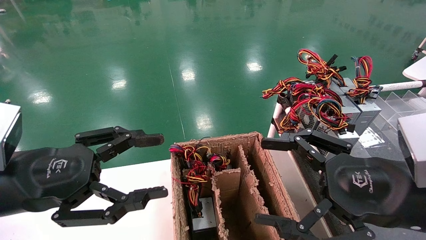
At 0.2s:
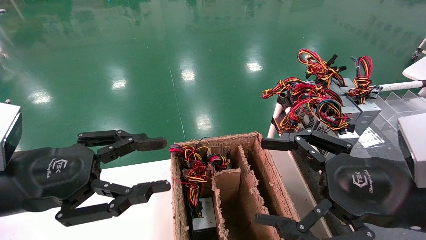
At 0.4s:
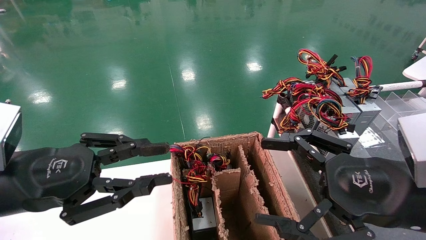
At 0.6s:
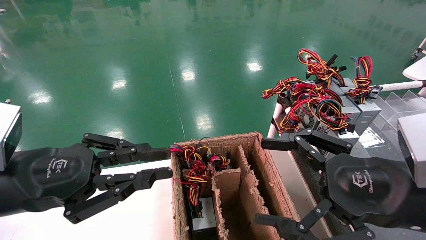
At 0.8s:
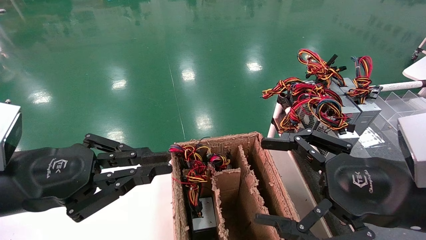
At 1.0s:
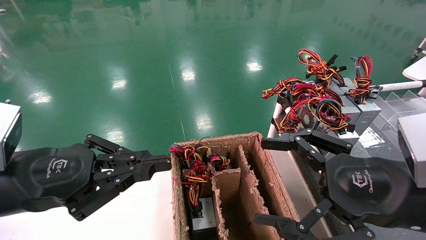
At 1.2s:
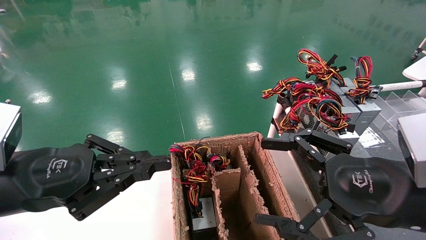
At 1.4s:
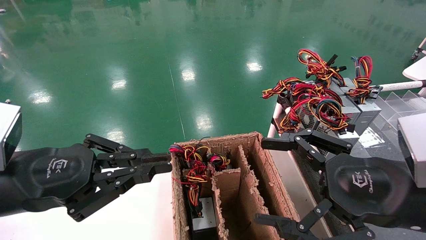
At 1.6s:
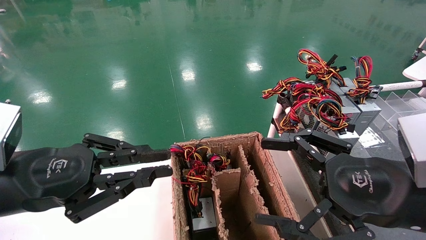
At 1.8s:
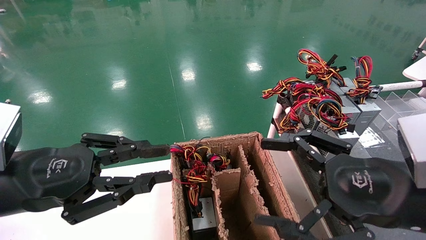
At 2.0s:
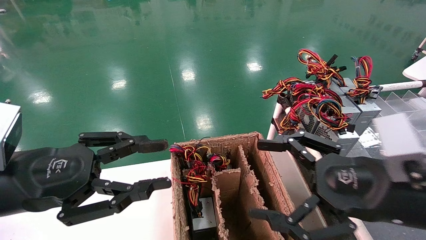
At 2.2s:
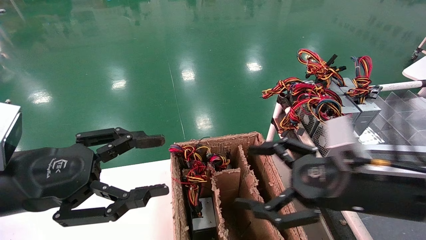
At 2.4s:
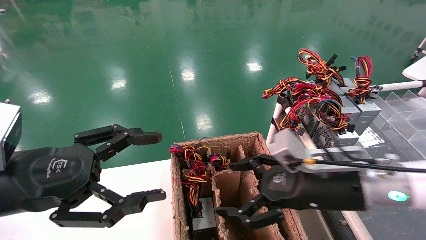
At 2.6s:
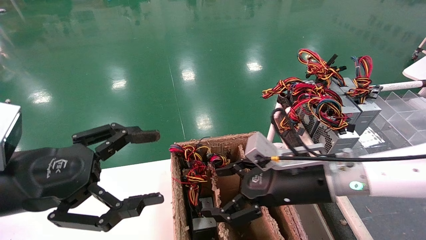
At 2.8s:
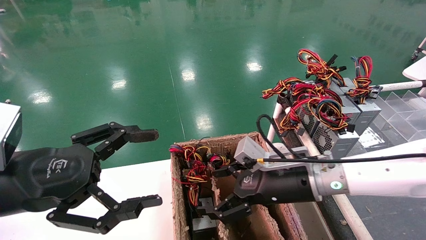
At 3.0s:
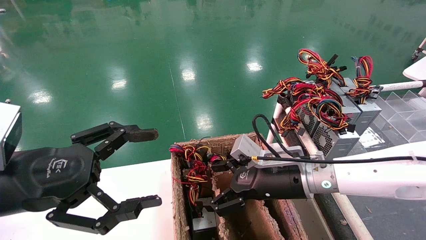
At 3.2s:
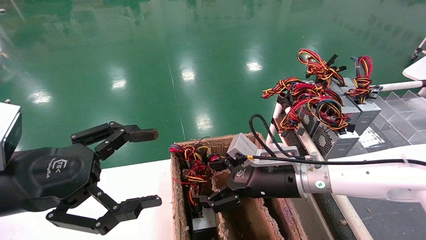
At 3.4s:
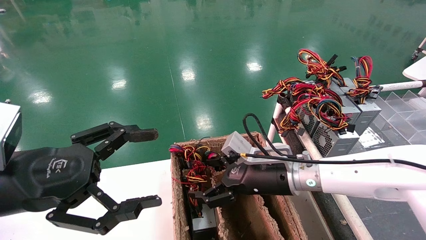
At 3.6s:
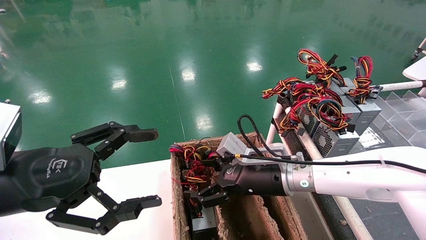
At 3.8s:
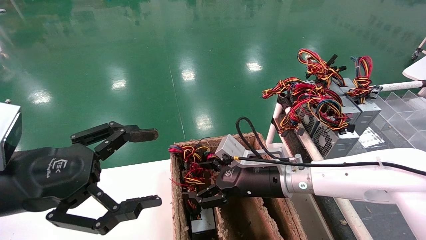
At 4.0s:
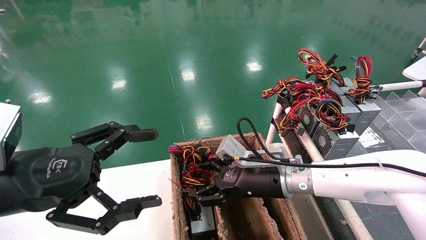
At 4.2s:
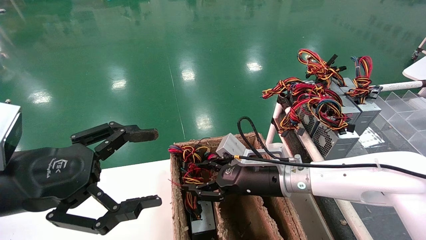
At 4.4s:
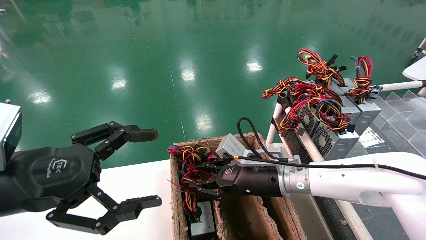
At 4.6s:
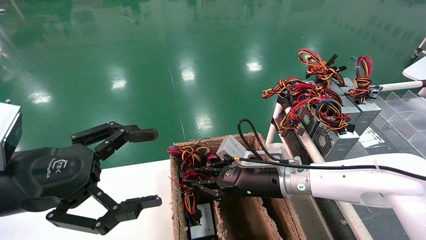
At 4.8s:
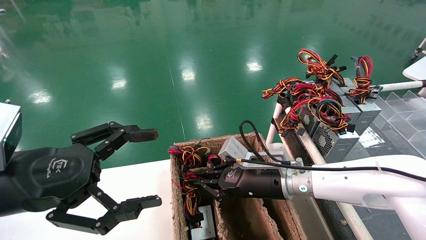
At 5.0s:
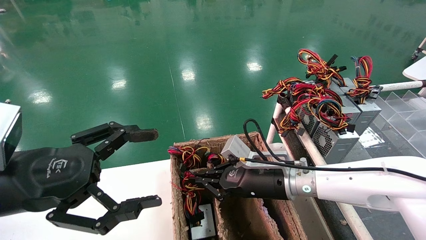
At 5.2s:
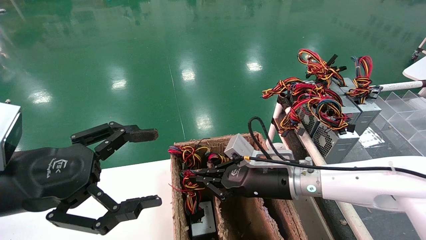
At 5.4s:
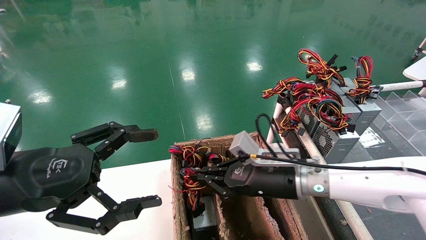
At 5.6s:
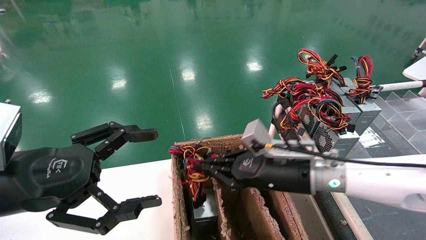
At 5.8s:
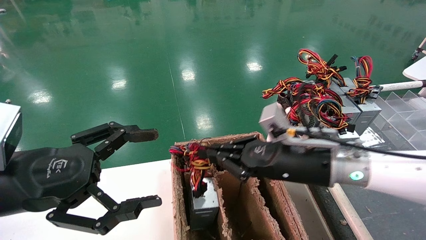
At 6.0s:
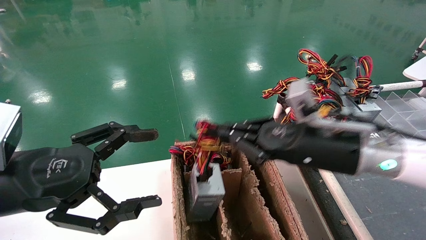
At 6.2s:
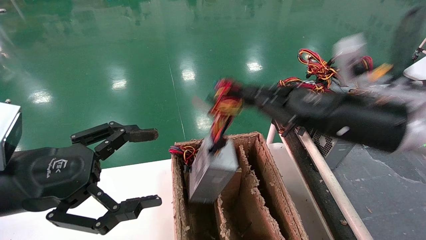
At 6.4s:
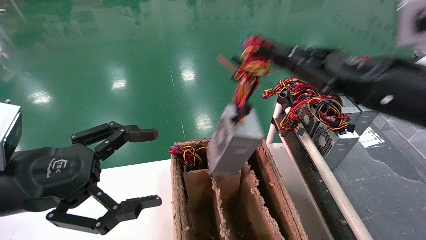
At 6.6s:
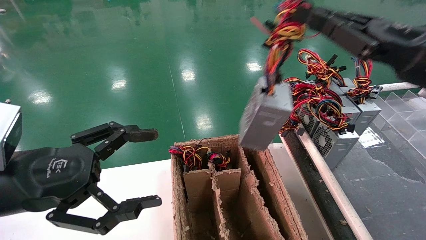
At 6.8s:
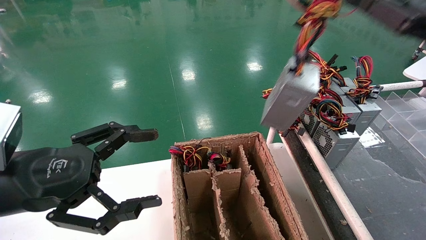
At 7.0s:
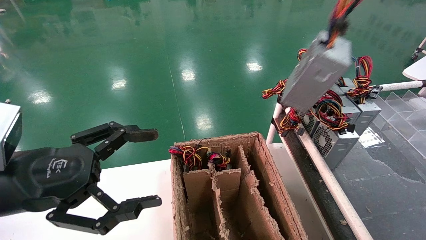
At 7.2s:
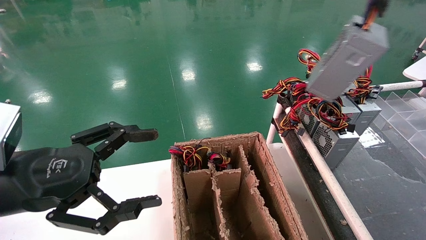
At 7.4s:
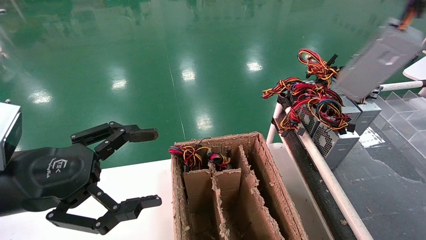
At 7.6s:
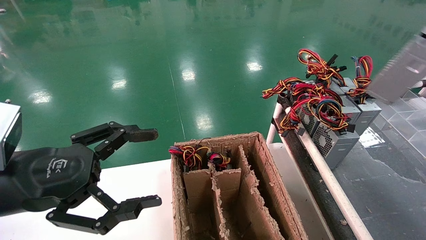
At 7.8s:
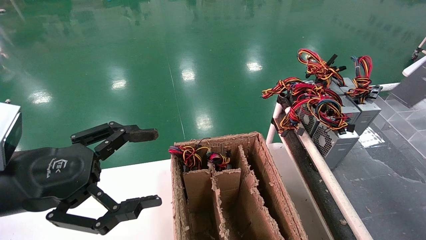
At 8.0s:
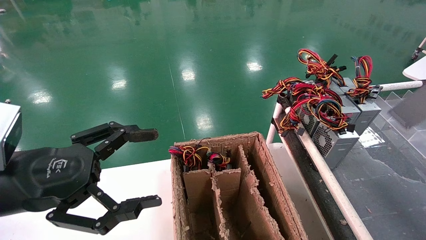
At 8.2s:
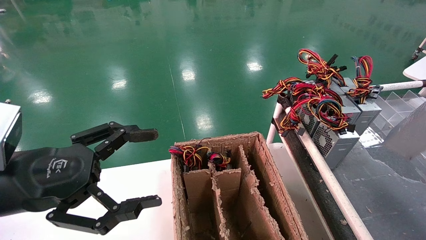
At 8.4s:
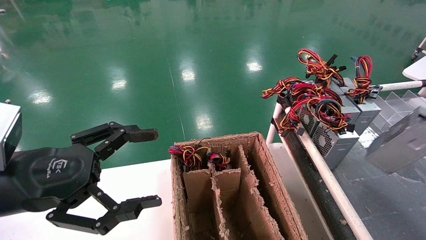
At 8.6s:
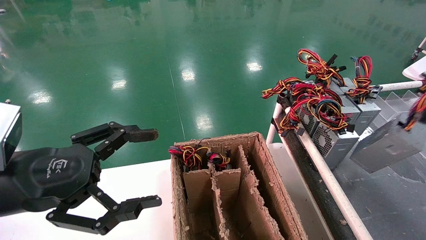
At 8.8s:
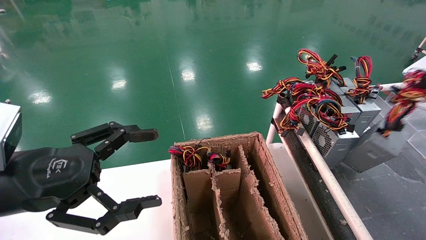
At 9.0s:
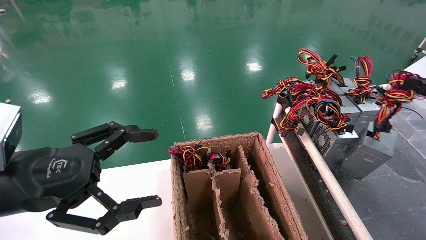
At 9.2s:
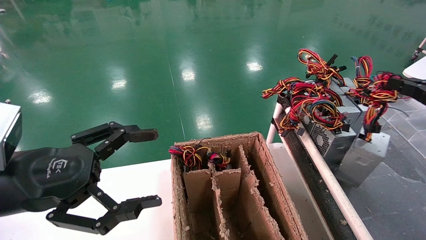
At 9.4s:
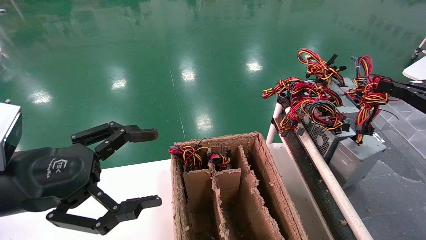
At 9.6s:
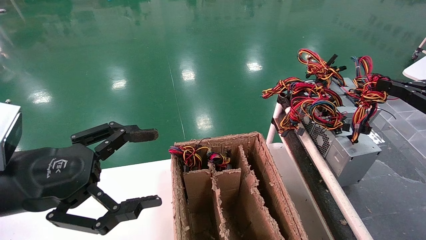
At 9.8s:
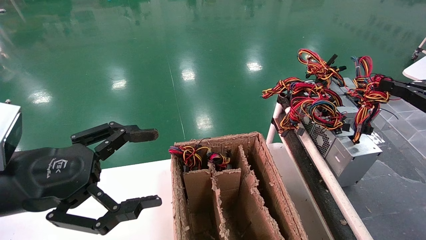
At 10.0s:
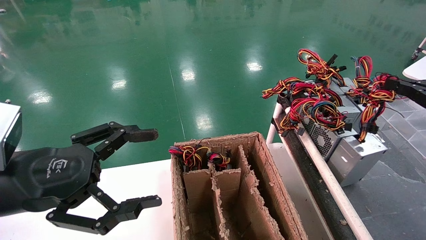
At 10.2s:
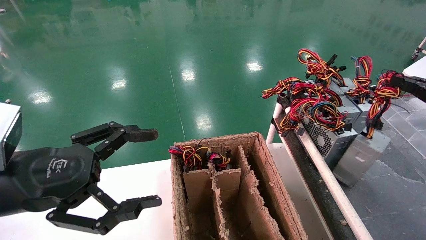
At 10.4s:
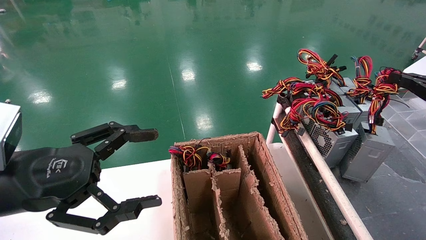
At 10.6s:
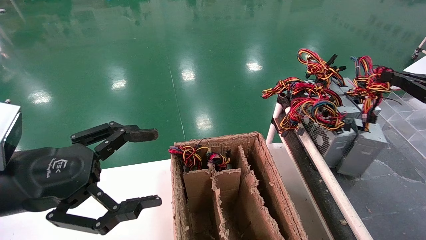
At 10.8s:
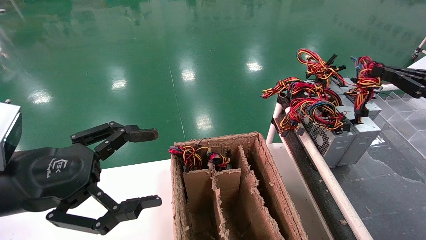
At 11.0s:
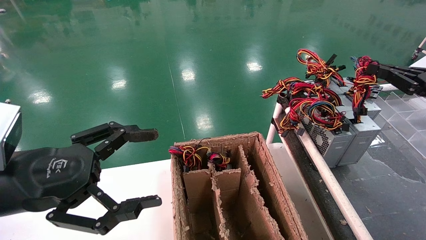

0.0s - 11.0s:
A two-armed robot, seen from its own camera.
Step, 1.0s - 5.0s: Grab and lift the power supply from the large box.
0.0s - 1.6s: The left gripper closes its fingers.
1.6s - 3.2s: The left gripper opens up; the right gripper travels forward, to the left and downward by about 20 cm.
3.2s - 4.8s: The right gripper closes up.
4.8s - 6.2s: The right gripper travels upward, to the right and backward by approximately 20 cm.
6.2s - 7.8s: The right gripper moves to the right, about 30 cm.
7.8s - 9.4s: The right gripper is displaced downward, to the left and forward by about 15 cm.
9.4s - 11.0s: The right gripper ends up some 5 cm from where it was.

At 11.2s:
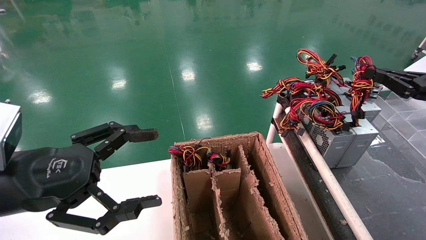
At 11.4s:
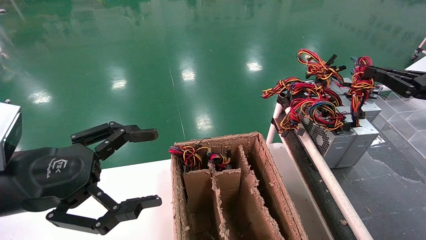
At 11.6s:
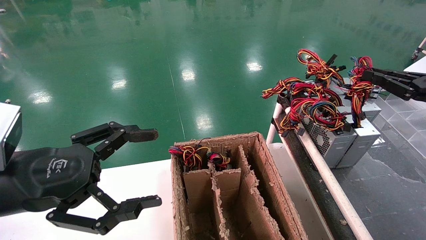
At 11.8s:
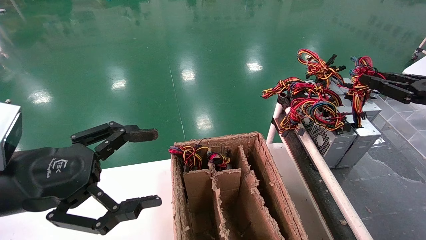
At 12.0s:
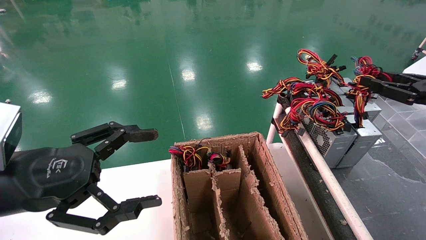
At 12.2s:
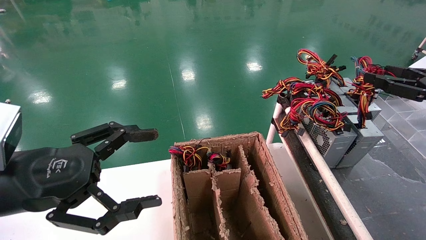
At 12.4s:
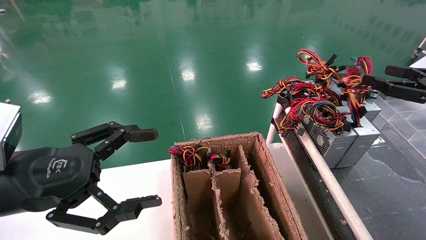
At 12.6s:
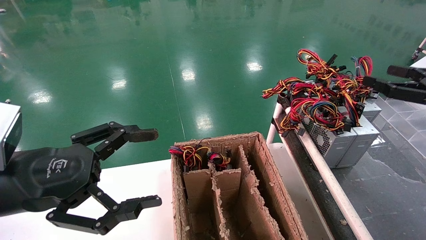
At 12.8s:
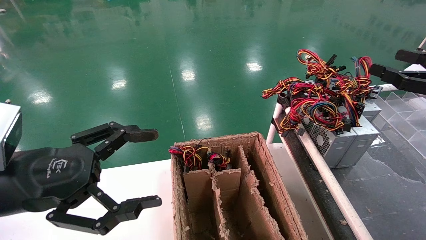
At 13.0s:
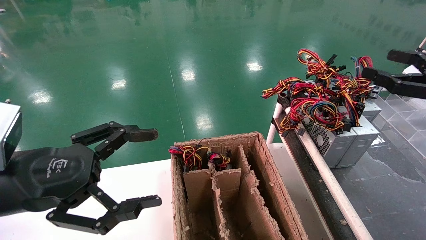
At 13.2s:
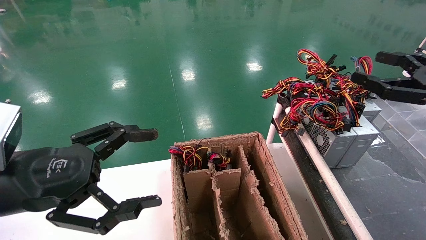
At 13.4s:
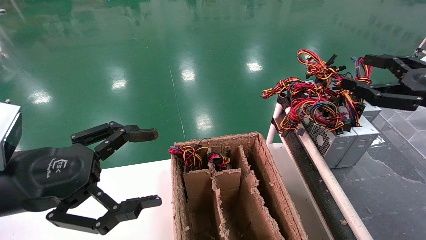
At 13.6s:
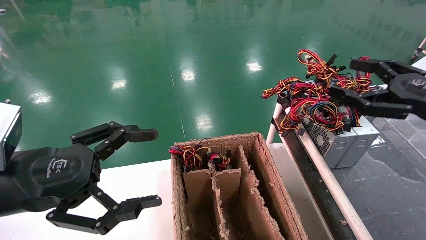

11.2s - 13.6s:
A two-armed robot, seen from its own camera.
11.2s - 12.4s: The right gripper opens its fingers.
12.4s - 13.6s: The right gripper travels to the left by approximately 5 cm, and opens.

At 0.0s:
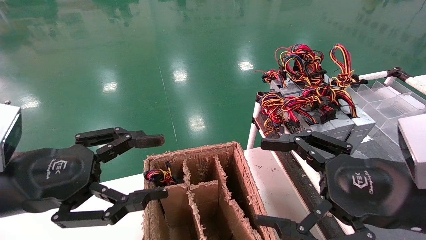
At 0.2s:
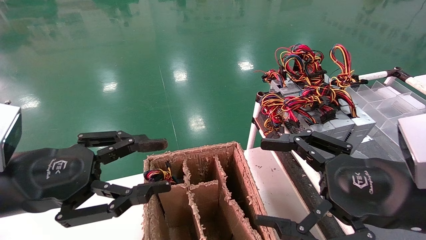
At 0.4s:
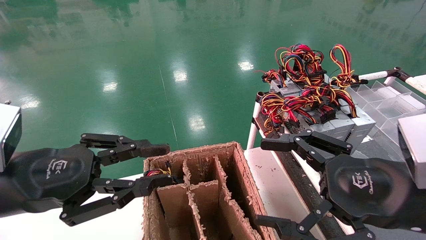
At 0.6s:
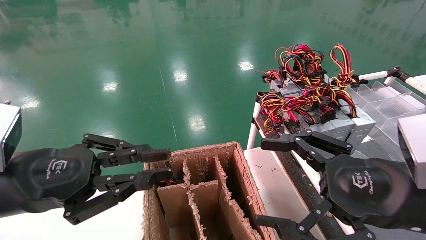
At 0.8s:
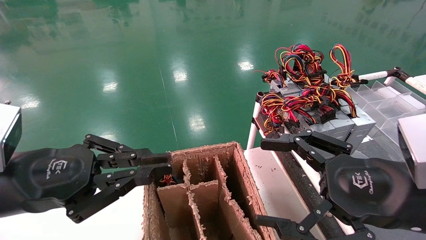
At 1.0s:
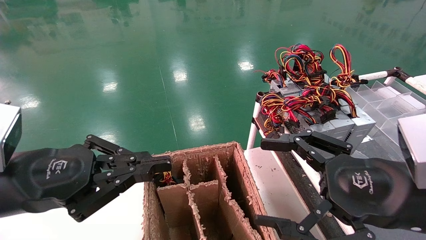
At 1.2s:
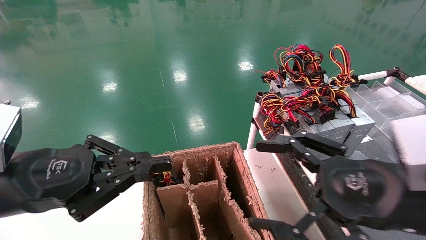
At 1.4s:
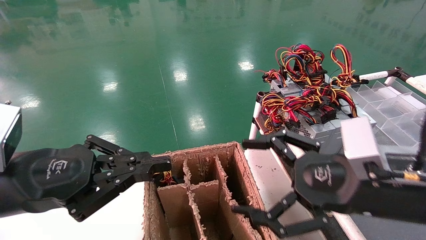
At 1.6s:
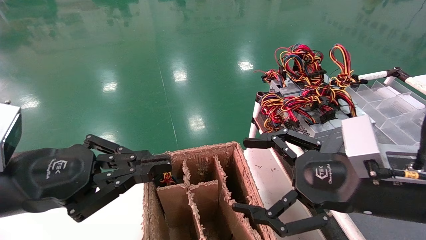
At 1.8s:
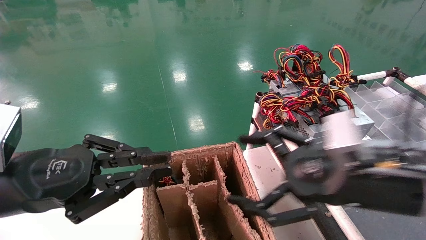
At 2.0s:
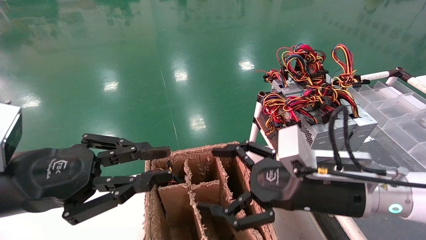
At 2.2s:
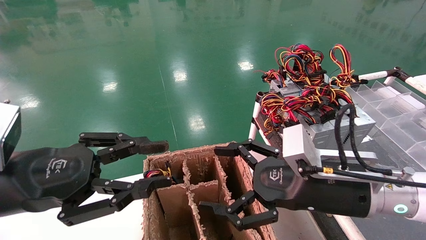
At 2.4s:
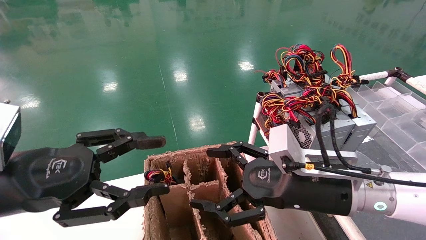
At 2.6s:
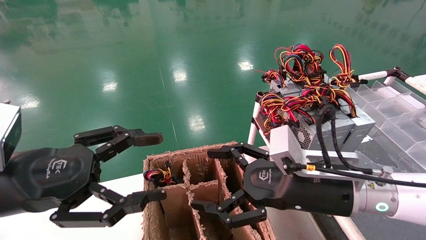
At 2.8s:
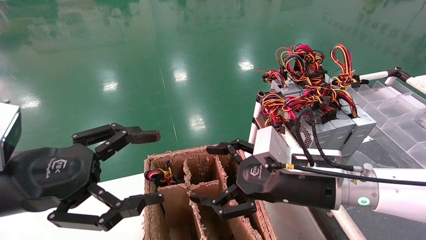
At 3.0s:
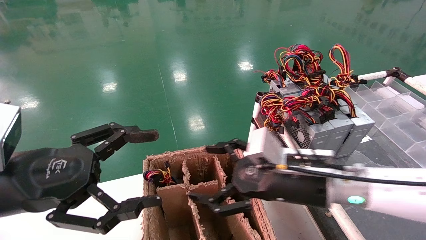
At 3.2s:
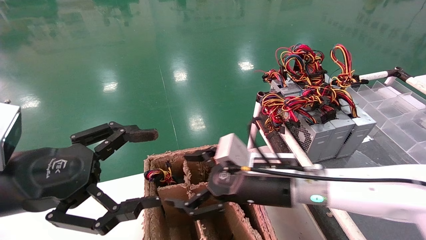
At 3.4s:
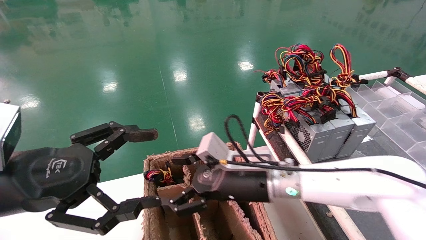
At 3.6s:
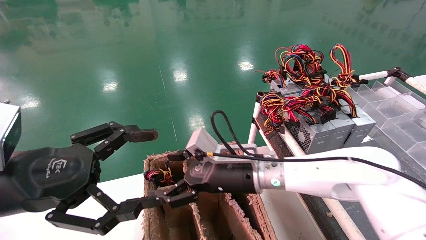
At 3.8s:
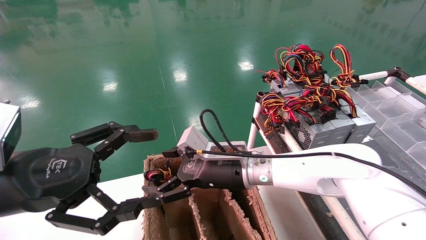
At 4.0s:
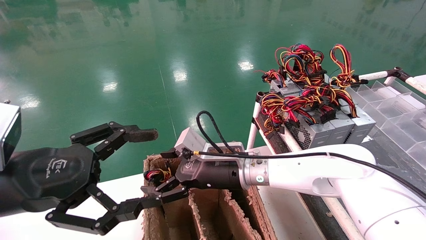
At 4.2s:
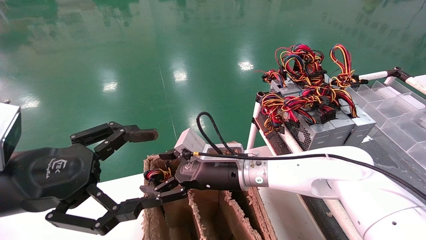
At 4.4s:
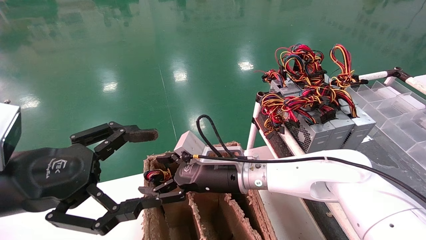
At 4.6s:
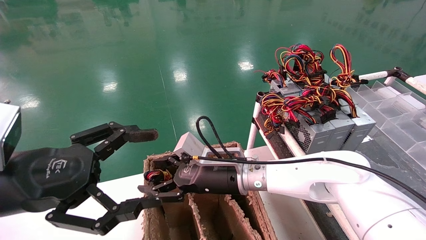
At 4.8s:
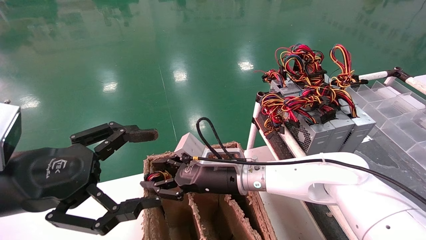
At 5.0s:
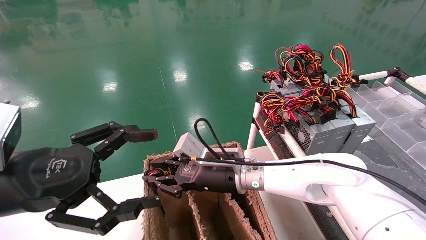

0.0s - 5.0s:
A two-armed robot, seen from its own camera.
0.0s - 1.6s: The left gripper closes.
1.6s - 3.4s: The left gripper opens. The right gripper shifts some 20 cm to the left, forward and downward.
3.4s - 5.0s: The right gripper changes place by about 5 cm, and closes up.
